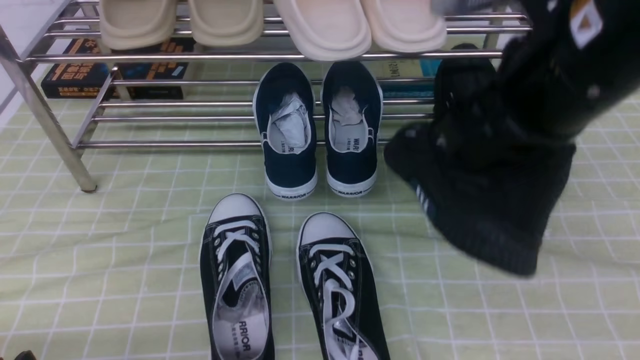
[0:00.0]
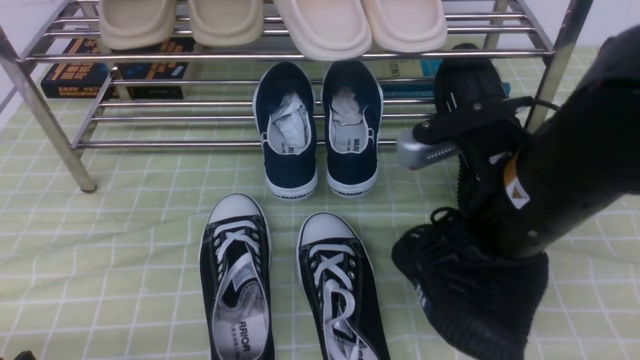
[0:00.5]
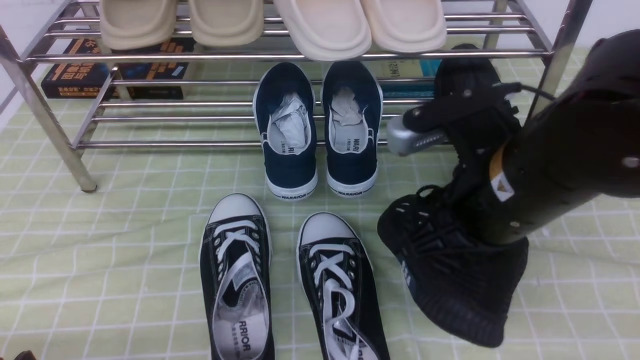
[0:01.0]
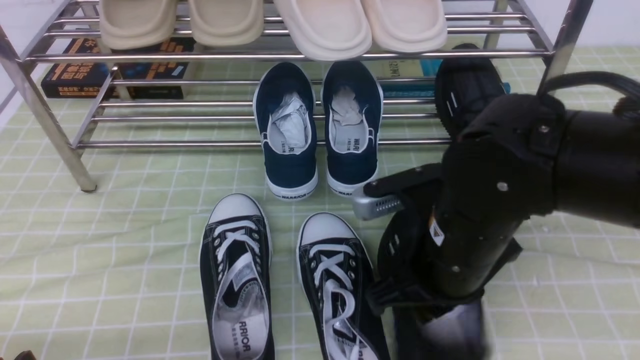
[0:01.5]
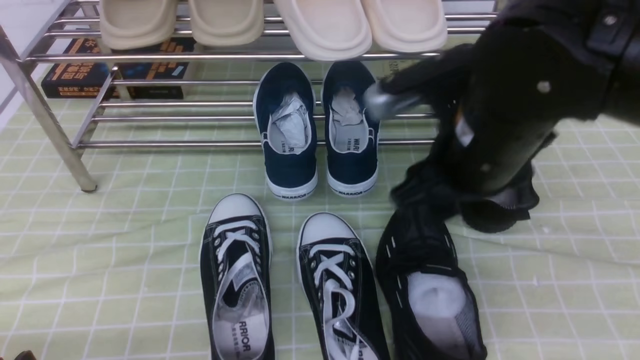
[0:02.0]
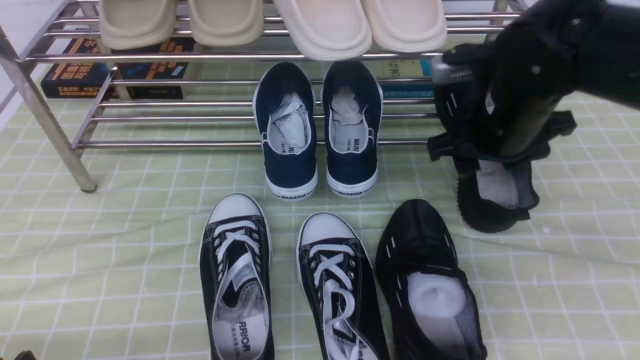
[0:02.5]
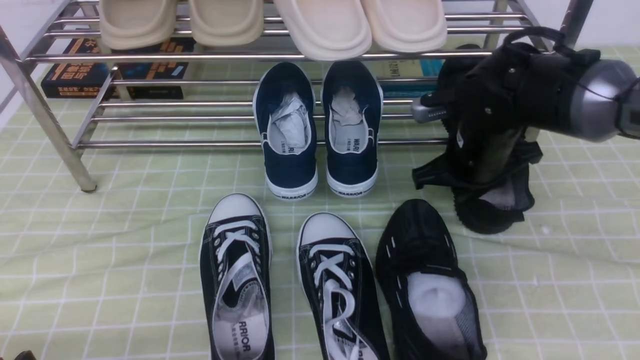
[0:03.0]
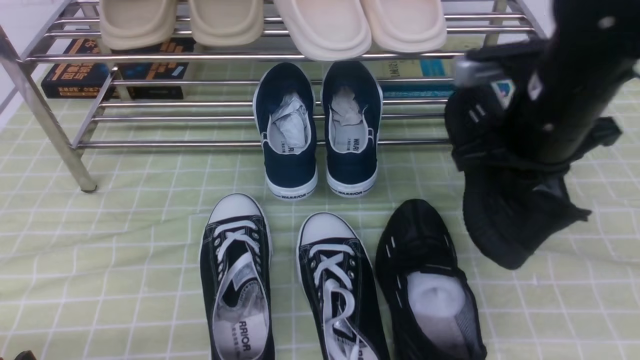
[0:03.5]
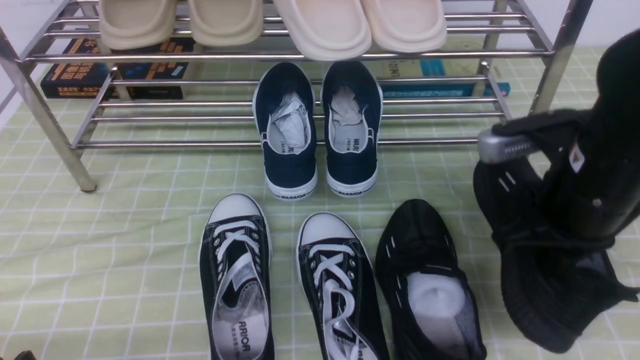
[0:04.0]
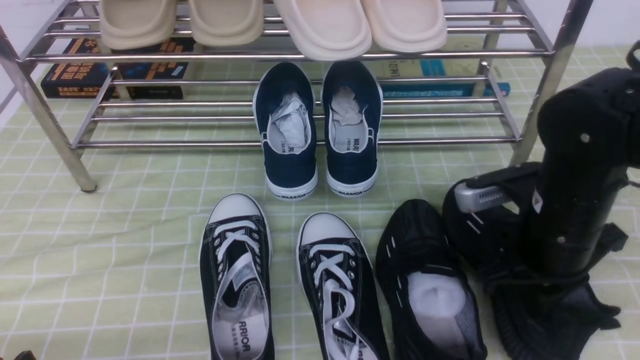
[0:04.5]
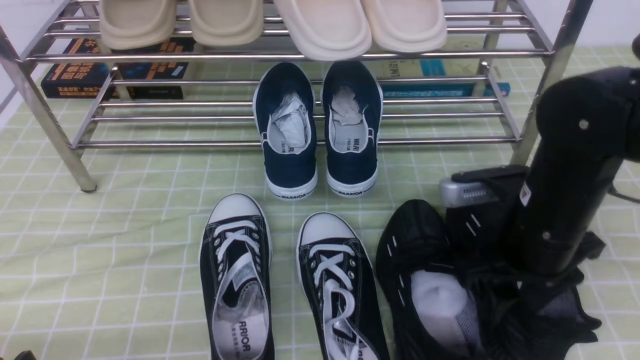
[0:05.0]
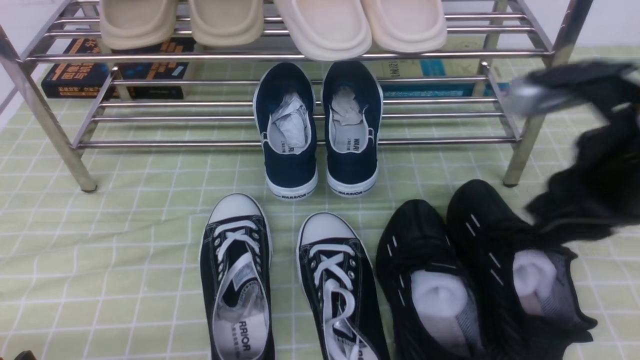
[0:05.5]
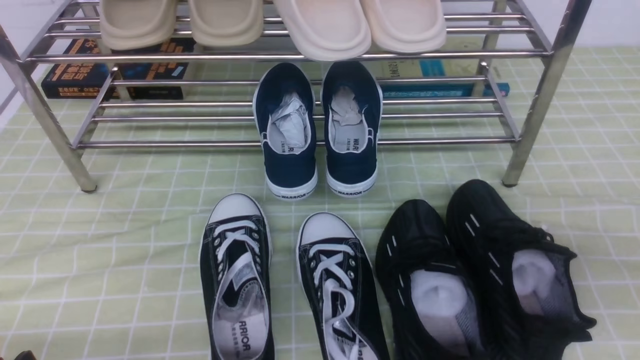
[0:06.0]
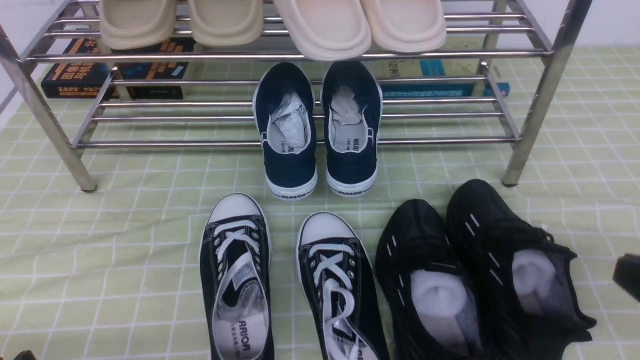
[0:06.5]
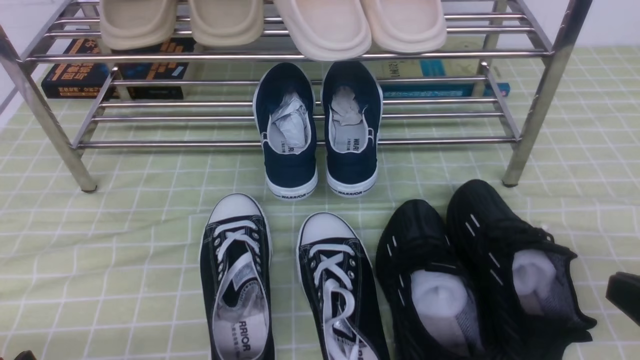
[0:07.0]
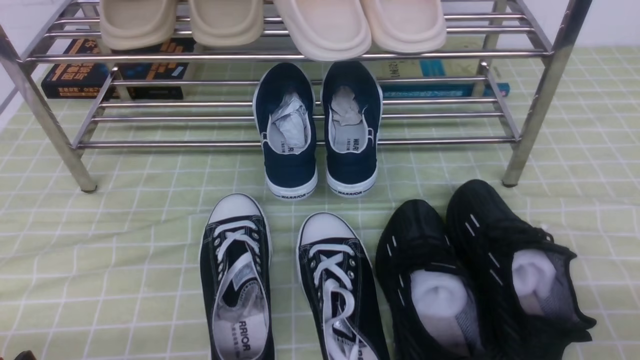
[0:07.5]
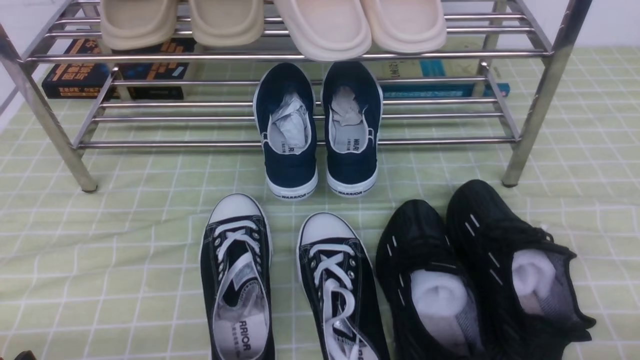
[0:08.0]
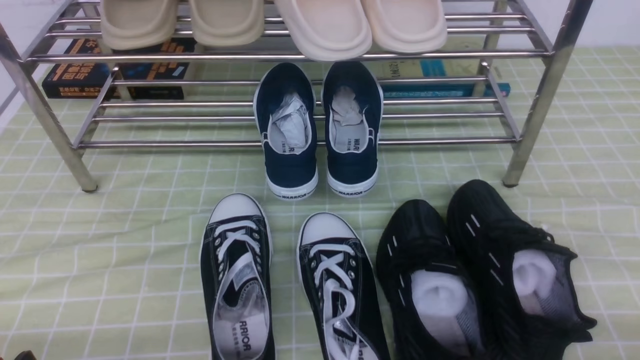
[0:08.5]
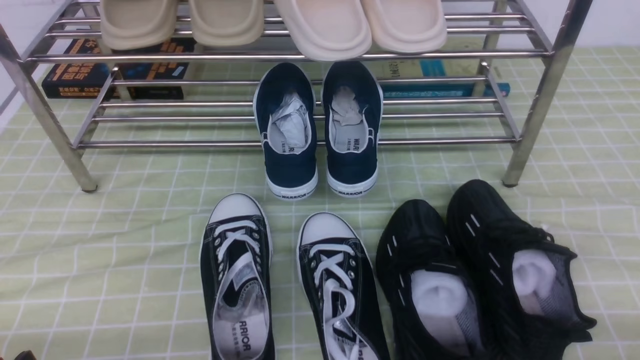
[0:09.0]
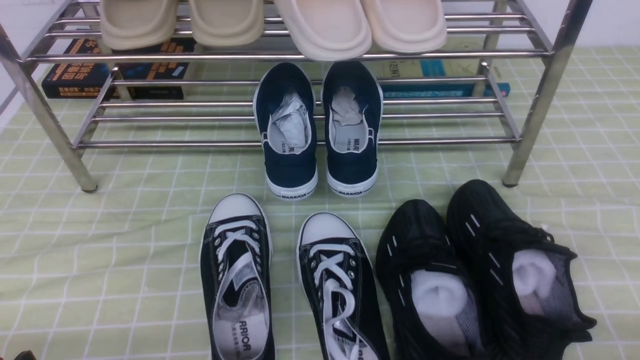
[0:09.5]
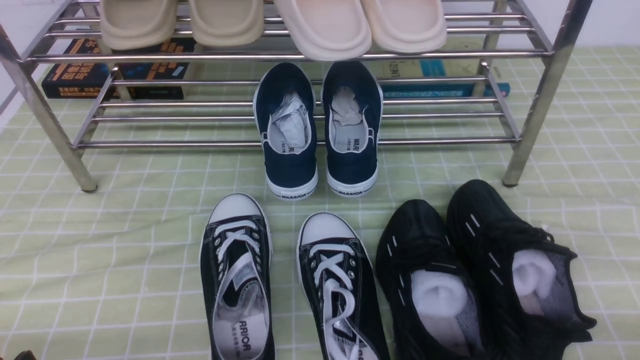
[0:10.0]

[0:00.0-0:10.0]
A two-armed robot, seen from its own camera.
Step, 0:00.0 to 0:01.5: use the right arm to take out the clamped shoe from the shoe rack and put it down.
Step, 0:02.0 to 0:03.0: use the right arm to clamp a shoe on the right side of the shoe rack.
Step, 0:03.5 to 0:05.0: use the right arm to take out the clamped shoe from the shoe rack and put it down.
0:00.0 to 0:02.0: The right gripper is displaced downward by some 5 cm, and opens.
0:02.0 to 0:04.0: The right gripper shifts some 10 cm to the right, travels forward and back again, roughly 10 cm each way, and closes its fingers.
0:04.0 to 0:06.0: The right gripper goes roughly 20 cm backward, to the right and upward, and opens, then closes once more.
0:06.0 to 0:08.0: The right gripper is displaced downward by about 20 cm.
